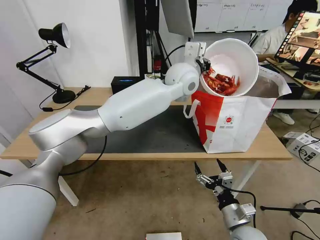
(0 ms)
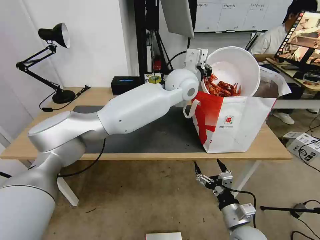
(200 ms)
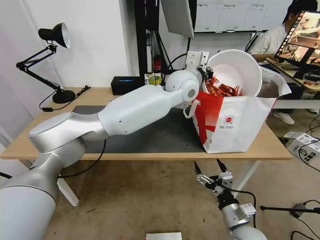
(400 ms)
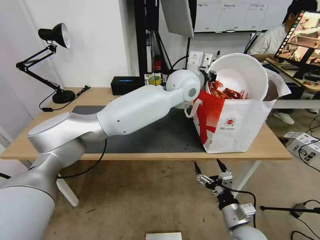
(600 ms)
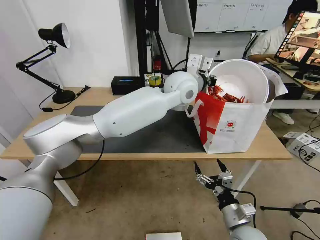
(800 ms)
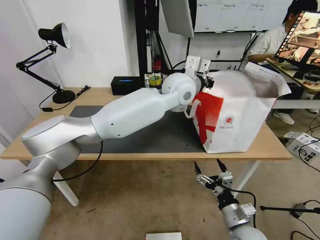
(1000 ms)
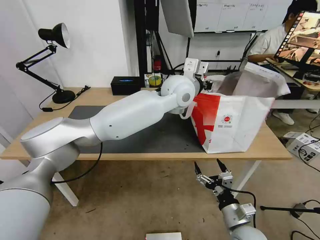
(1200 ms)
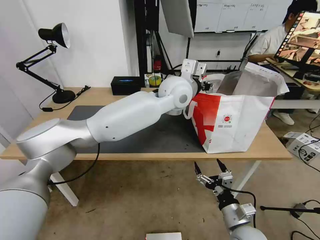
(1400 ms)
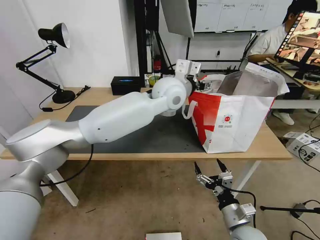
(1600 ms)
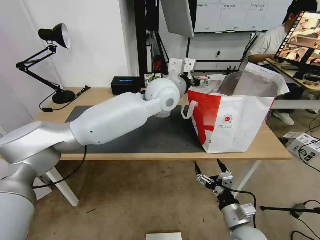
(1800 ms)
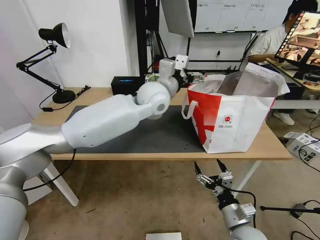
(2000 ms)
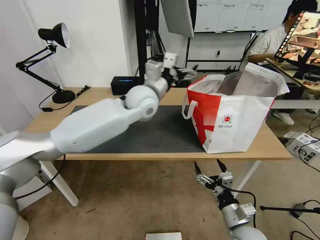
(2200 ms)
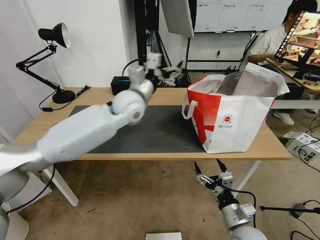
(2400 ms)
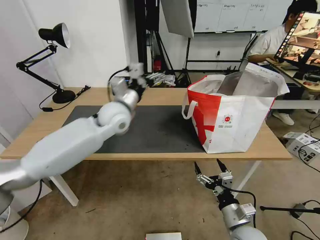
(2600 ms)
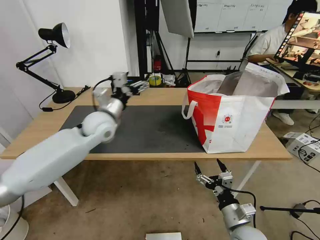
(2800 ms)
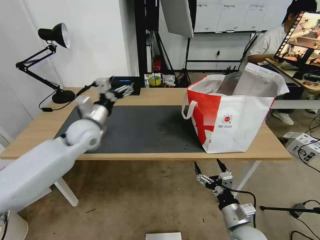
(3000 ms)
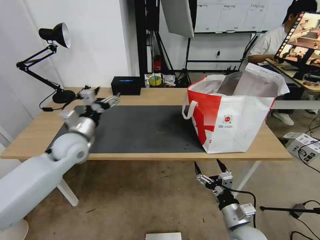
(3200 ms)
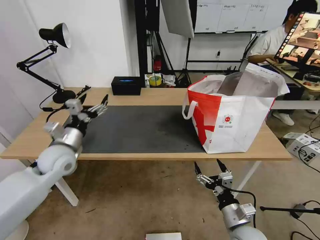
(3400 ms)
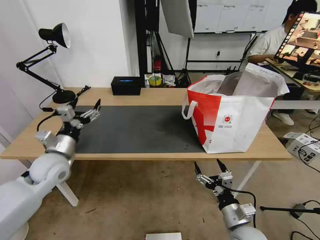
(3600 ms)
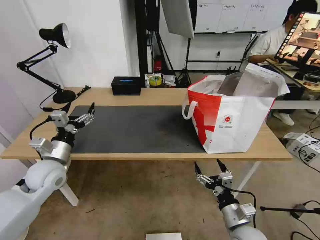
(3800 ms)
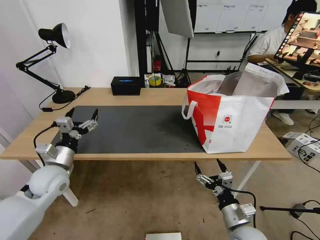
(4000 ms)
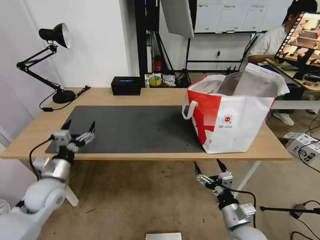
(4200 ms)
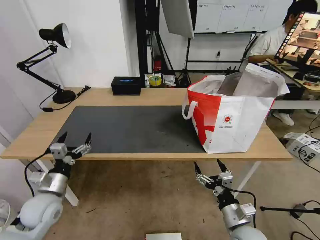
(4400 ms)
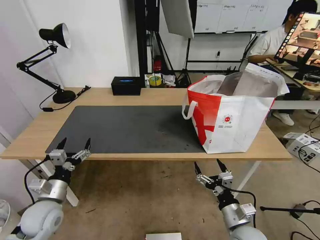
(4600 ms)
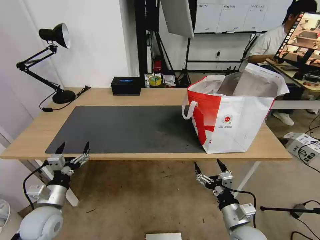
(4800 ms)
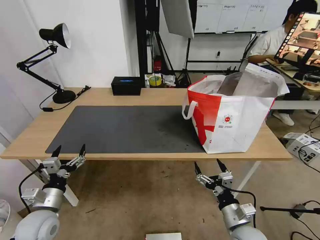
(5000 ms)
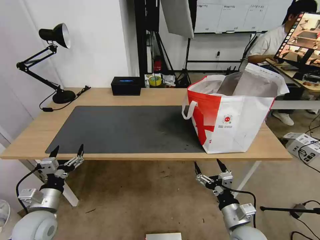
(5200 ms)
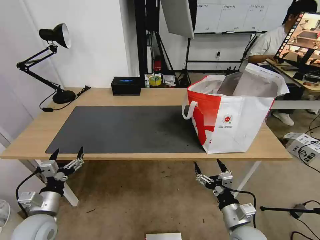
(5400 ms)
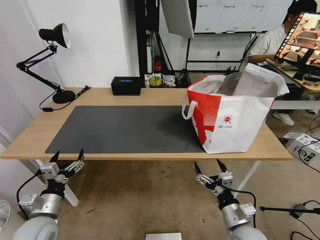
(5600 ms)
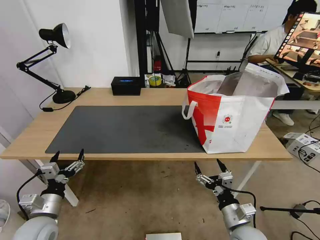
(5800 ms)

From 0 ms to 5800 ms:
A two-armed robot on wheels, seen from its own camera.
Task of the whole recording: Pick up the trash from the table and place it into the takeout bag.
From 0 ms to 1400 ms: The left gripper opens its fingers.
From 1400 ms to 2800 ms: The left gripper heads to the left and downward, covering about 25 cm, and opens.
From 2800 ms to 4400 ms: The left gripper travels backward, to the left and downward by some 30 cm.
From 4400 ms to 5800 ms: The left gripper travels backward by some 5 cm.
